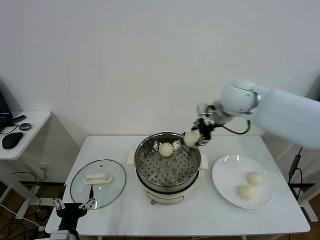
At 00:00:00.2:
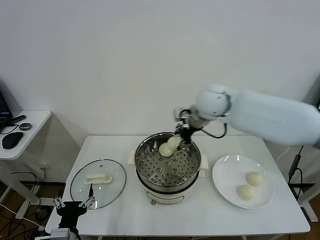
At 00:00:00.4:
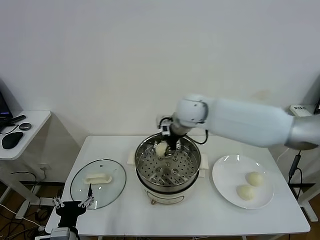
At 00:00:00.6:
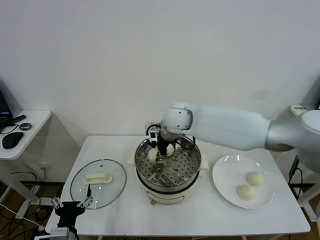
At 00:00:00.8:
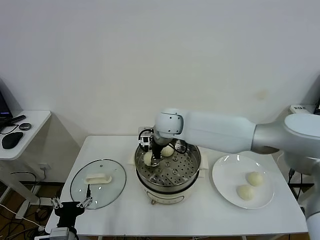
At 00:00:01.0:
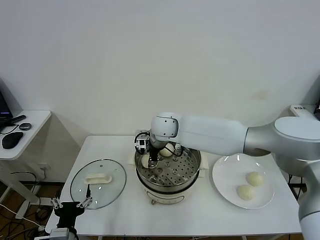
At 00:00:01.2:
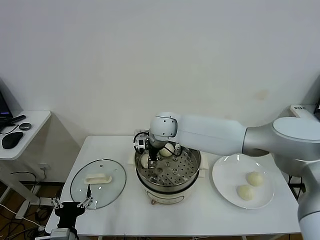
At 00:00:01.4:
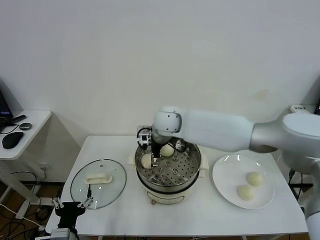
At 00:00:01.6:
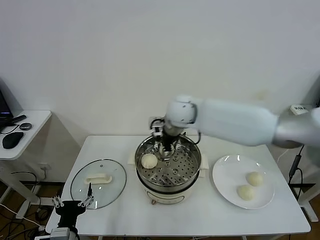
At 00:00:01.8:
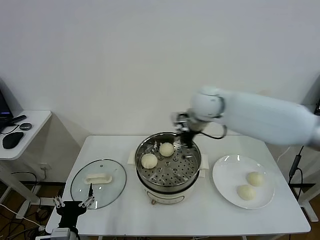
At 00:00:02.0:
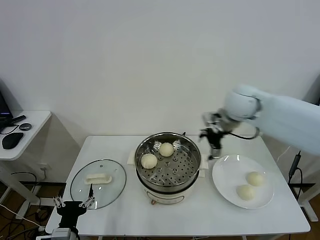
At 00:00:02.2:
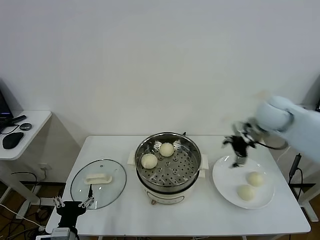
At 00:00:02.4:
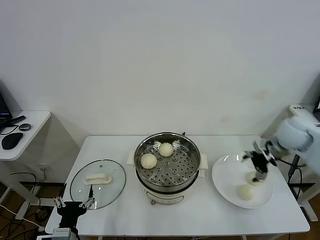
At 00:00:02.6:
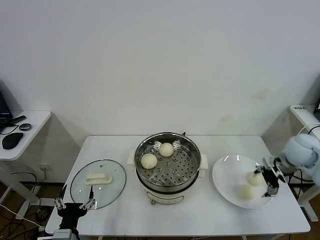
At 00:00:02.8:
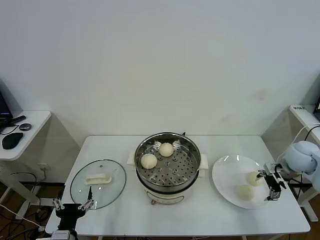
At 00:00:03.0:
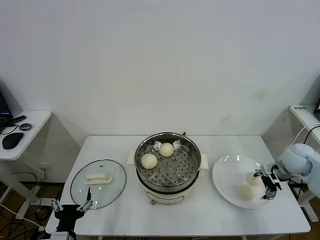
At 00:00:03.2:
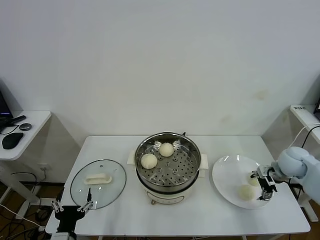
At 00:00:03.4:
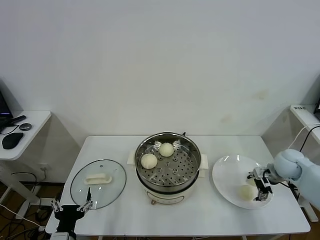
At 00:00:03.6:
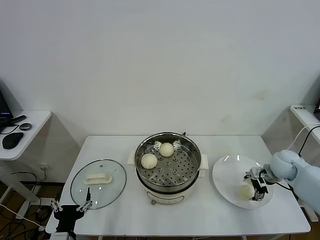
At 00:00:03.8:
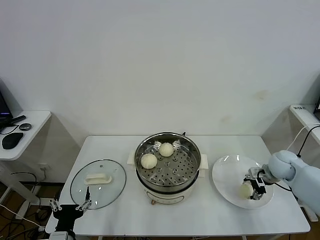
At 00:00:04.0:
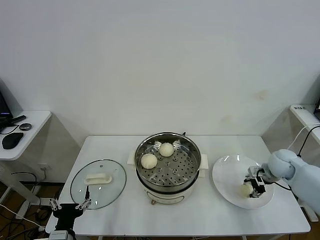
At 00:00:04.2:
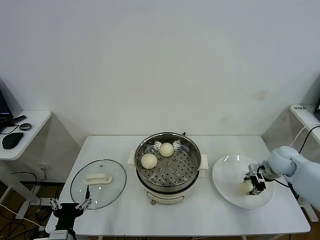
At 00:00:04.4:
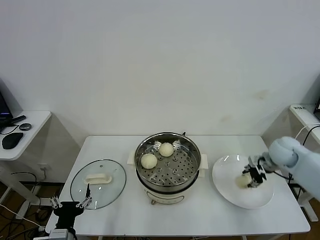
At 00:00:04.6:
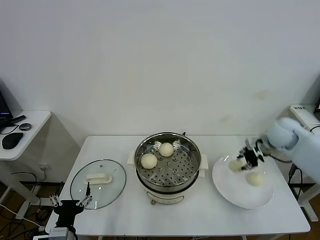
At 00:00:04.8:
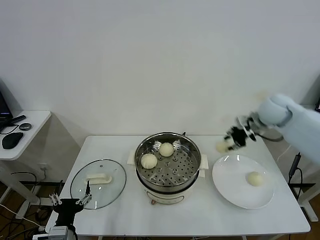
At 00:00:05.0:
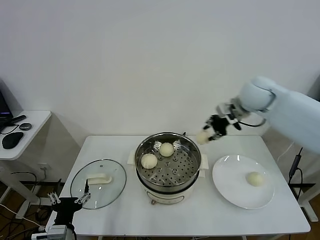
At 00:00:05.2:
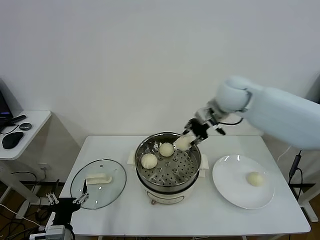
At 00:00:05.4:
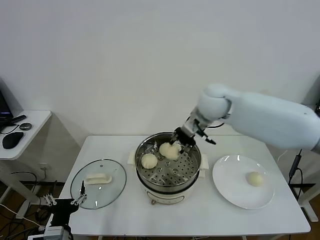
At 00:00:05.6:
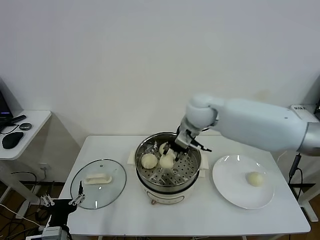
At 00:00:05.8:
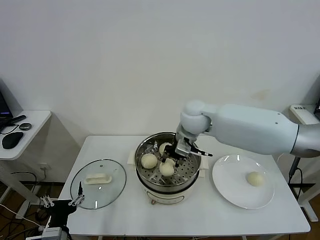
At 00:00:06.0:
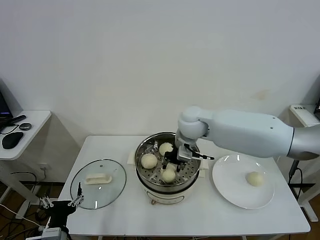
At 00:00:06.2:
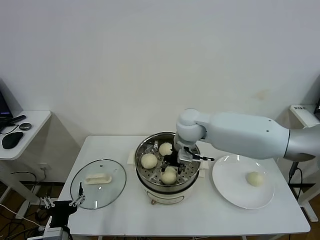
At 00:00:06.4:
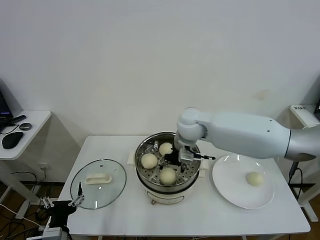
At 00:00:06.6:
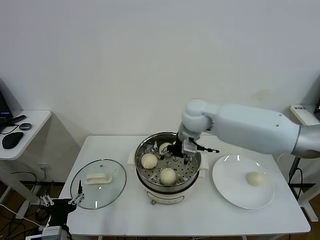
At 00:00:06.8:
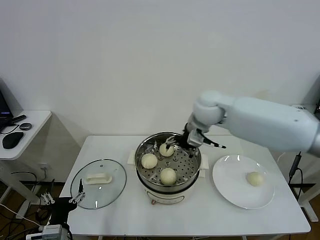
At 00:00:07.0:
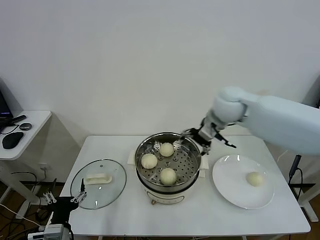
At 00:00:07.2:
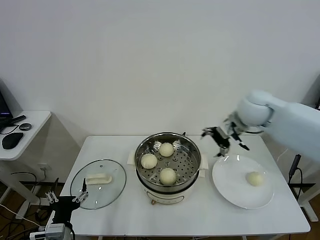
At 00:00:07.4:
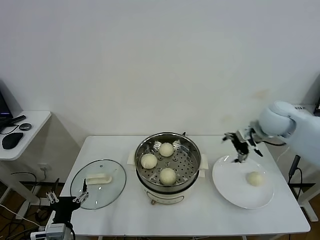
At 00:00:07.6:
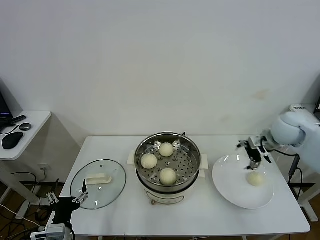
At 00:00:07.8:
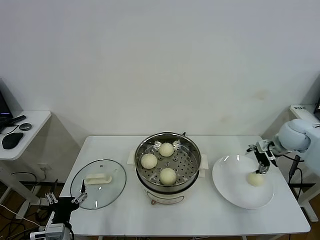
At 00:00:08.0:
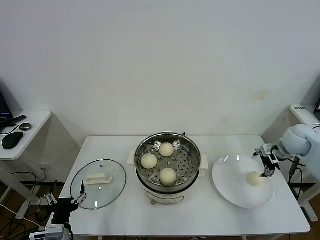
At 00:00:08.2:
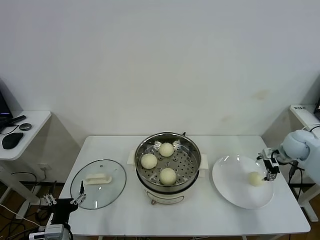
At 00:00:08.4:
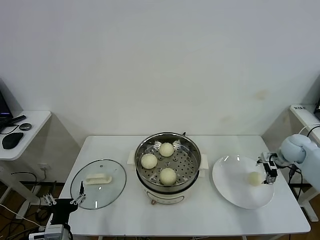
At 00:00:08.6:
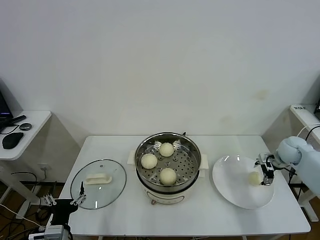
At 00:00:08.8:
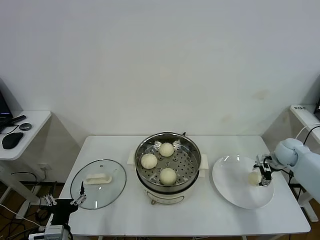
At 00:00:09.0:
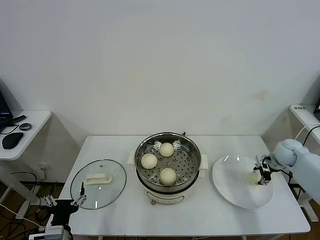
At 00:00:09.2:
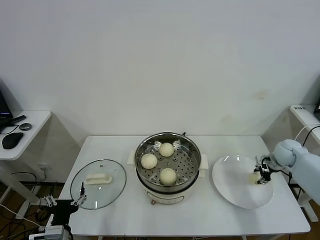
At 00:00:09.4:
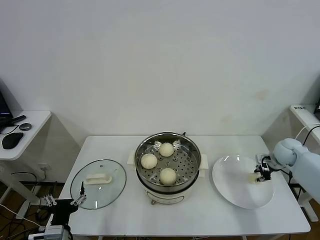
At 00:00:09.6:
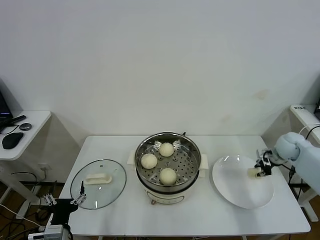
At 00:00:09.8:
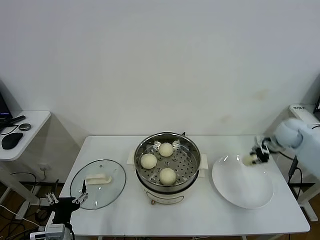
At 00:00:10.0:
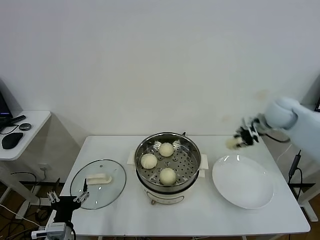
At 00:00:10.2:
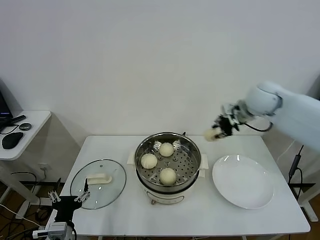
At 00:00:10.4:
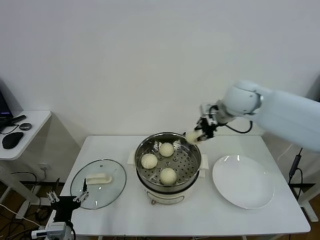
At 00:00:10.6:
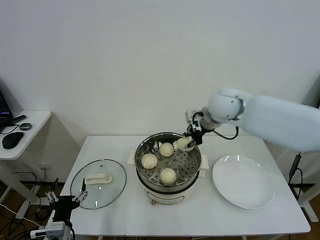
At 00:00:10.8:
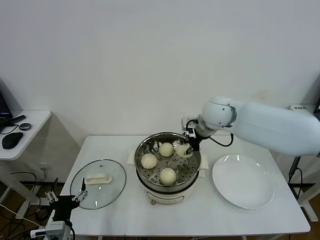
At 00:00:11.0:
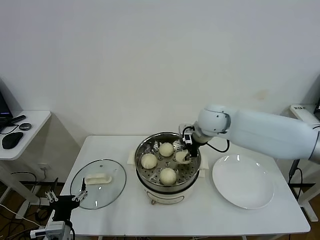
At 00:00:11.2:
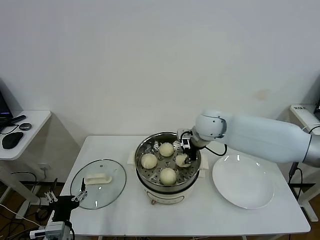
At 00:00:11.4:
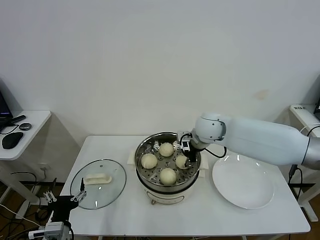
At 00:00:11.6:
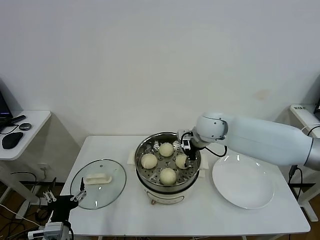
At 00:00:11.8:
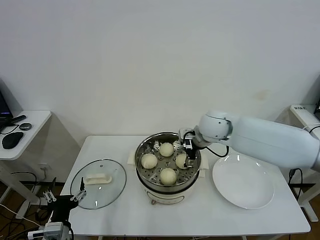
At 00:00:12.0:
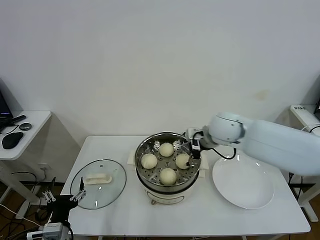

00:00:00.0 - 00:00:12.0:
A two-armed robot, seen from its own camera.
Task of the whole recording: take steamed baozi put them in steamer.
Step, 00:00:00.0 - 00:00:01.4: Place the baozi on the steamer with right gripper.
Step, 00:00:01.8 - 00:00:04.0: Grasp the baozi in the plate with right gripper.
Step, 00:00:04.2 - 00:00:06.4: Place the baozi on the steamer with right gripper.
Step, 00:00:06.6 - 00:00:09.2: Grasp the baozi in the plate with right gripper.
Step, 00:00:09.4 - 00:00:11.8: Place the baozi on the steamer with right gripper.
00:00:00.0 - 00:00:01.6: The right gripper heads to the left, covering approximately 15 cm, and opens.
00:00:01.6 - 00:00:03.0: The right gripper travels to the right by approximately 40 cm.
00:00:03.0 - 00:00:04.4: The right gripper closes.
00:00:04.4 - 00:00:06.0: The right gripper travels to the left by approximately 30 cm.
00:00:06.0 - 00:00:07.6: The right gripper travels to the right by roughly 30 cm, and opens.
00:00:07.6 - 00:00:09.0: The right gripper goes about 15 cm downward and to the right, and closes.
00:00:09.0 - 00:00:10.4: The right gripper is displaced to the left and upward by roughly 35 cm, and closes.
00:00:10.4 - 00:00:12.0: The right gripper heads downward, covering roughly 10 cm, and opens up.

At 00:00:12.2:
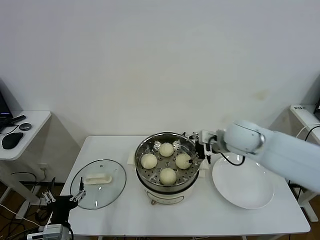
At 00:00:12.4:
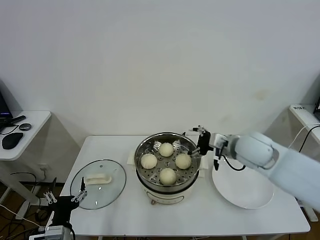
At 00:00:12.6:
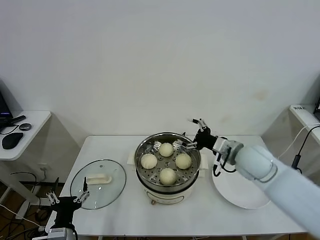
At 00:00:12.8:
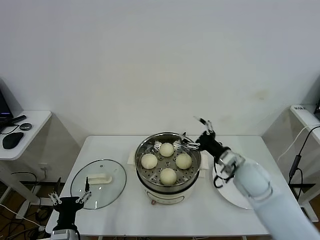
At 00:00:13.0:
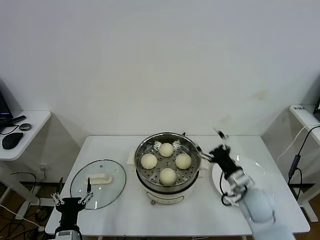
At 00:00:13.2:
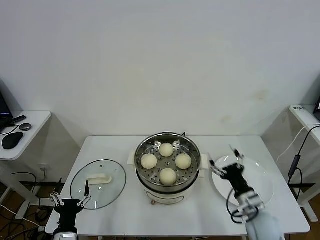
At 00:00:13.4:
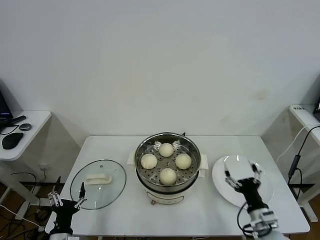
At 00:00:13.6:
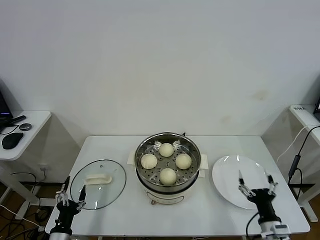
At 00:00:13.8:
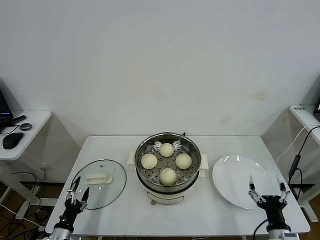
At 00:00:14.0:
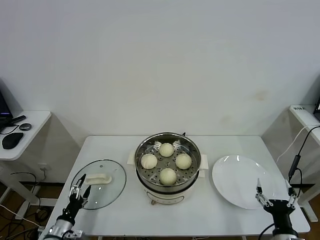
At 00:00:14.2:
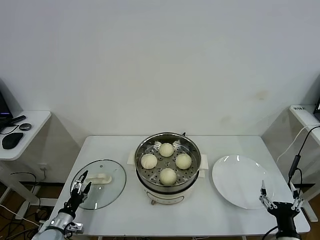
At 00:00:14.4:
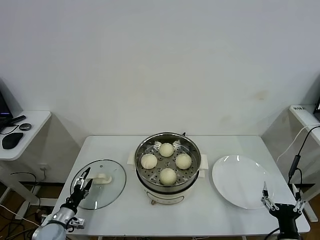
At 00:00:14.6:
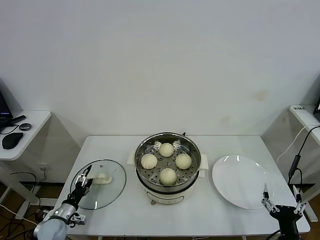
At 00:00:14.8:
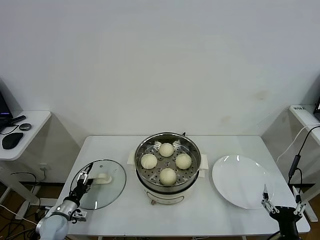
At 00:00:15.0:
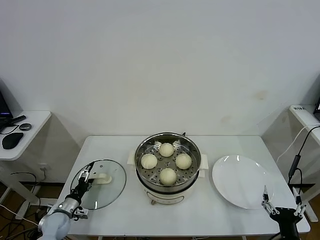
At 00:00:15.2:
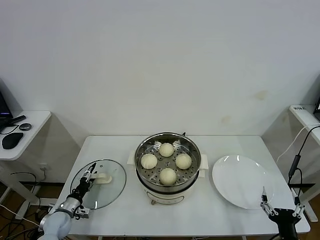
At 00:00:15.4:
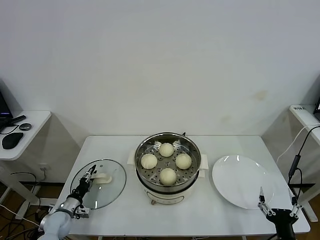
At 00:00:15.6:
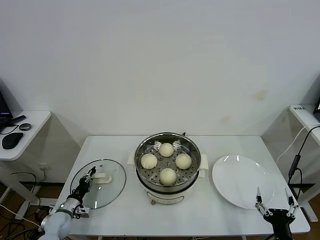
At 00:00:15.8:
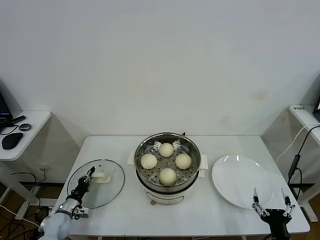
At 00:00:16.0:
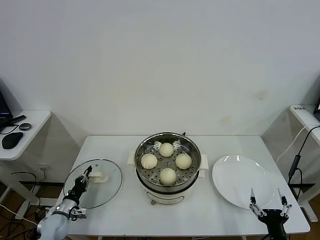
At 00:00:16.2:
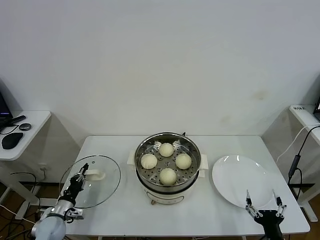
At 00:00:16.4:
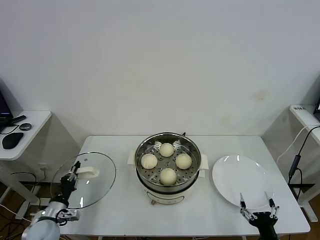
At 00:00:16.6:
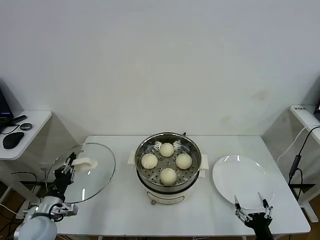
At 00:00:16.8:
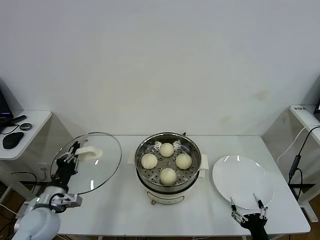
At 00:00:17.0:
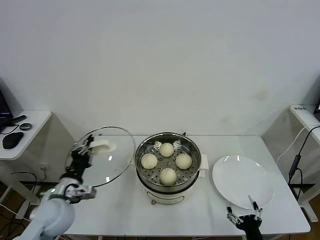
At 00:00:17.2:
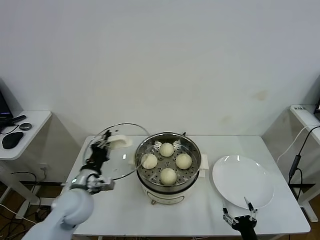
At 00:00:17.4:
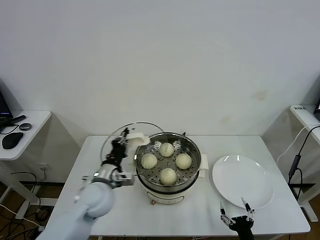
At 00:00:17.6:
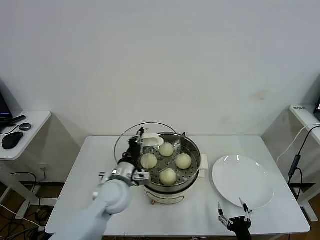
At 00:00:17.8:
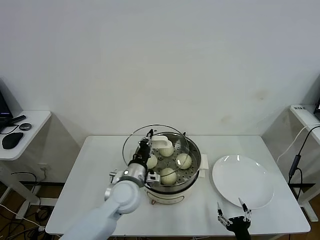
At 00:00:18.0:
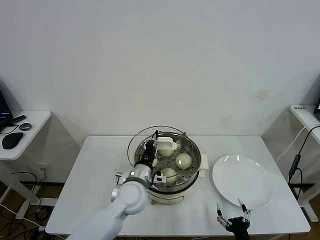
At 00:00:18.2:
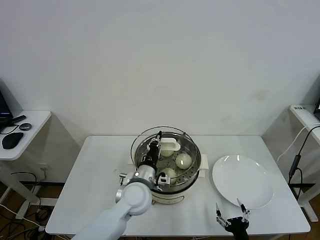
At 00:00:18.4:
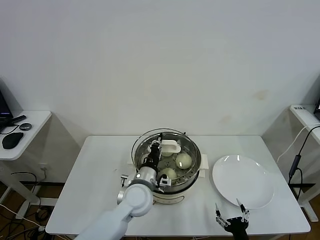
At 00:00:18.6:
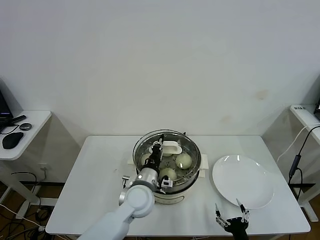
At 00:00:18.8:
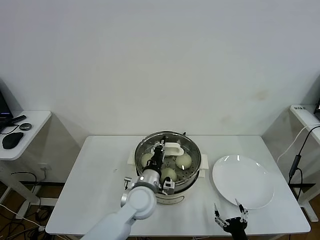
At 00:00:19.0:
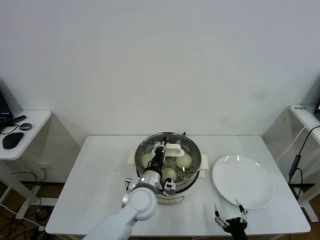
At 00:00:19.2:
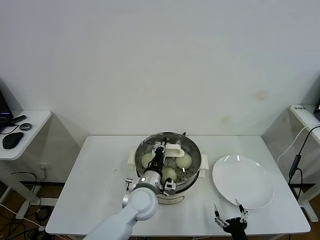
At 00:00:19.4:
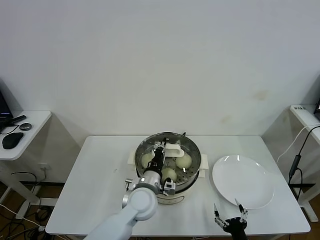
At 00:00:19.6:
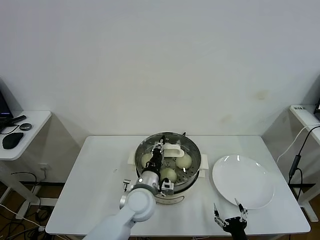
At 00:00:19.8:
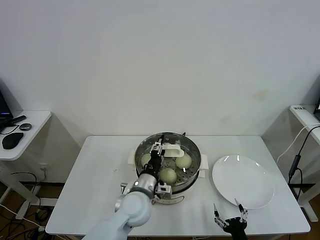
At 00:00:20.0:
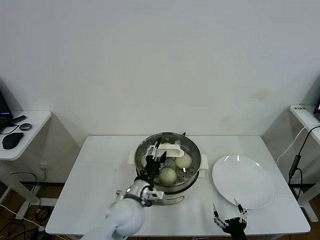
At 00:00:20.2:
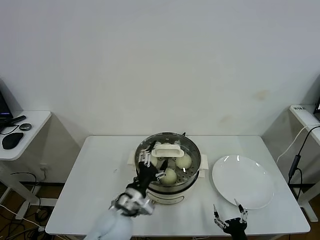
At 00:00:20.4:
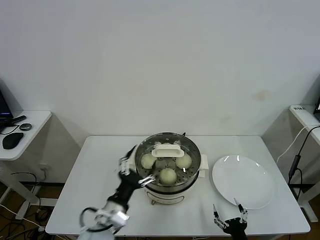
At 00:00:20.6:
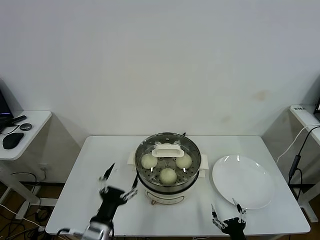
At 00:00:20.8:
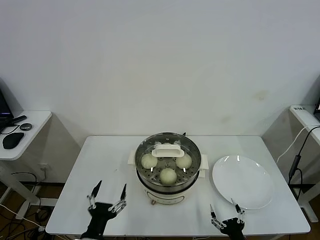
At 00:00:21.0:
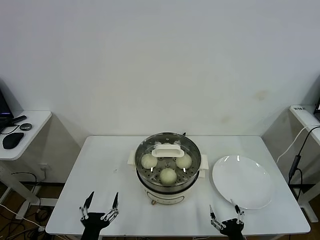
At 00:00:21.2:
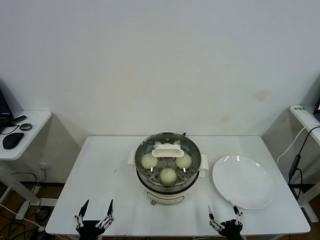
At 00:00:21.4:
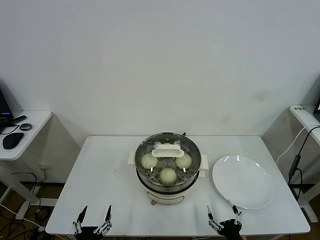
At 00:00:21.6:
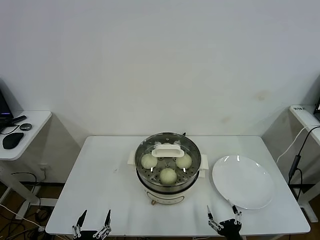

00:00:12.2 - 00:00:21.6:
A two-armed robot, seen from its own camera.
Task of the whole recording: take steamed baozi put them in steamer.
Step, 00:00:12.2 - 00:00:15.8: Grasp the pot lid with left gripper.
Step, 00:00:16.0 - 00:00:20.4: Place the pot lid on the steamer with left gripper.
00:00:12.2 - 00:00:13.8: The right gripper is displaced backward, downward and to the right by roughly 40 cm. Meanwhile the left gripper shifts roughly 15 cm downward and to the left.
00:00:13.8 - 00:00:15.4: The left gripper heads forward, covering about 15 cm, and closes.
00:00:15.4 - 00:00:17.0: The left gripper moves upward and to the right, roughly 25 cm, and closes up.
00:00:17.0 - 00:00:18.4: The left gripper travels to the right by approximately 25 cm.
00:00:18.4 - 00:00:20.0: The left gripper opens its fingers.
00:00:20.0 - 00:00:21.6: The left gripper moves backward, to the left and downward, some 30 cm.
